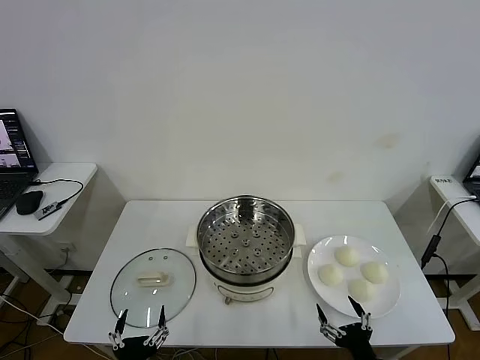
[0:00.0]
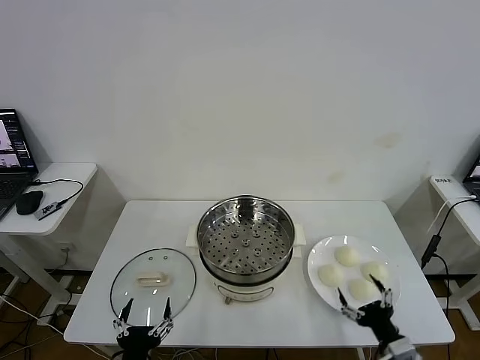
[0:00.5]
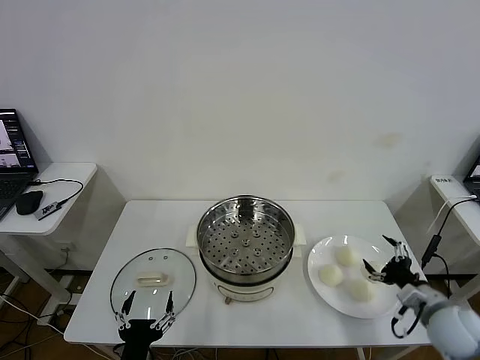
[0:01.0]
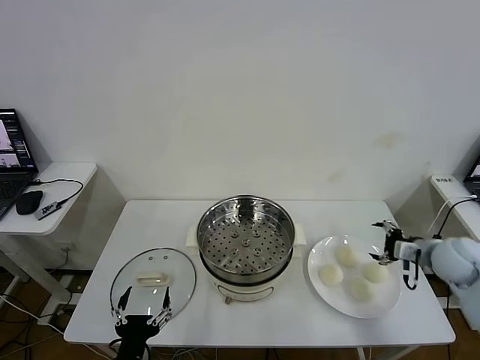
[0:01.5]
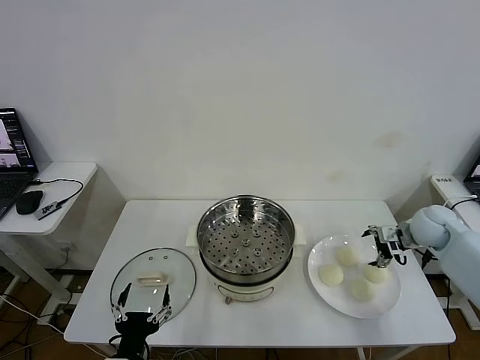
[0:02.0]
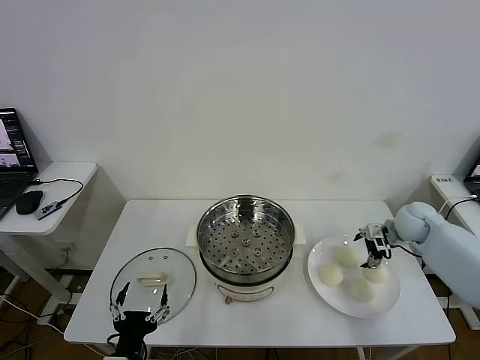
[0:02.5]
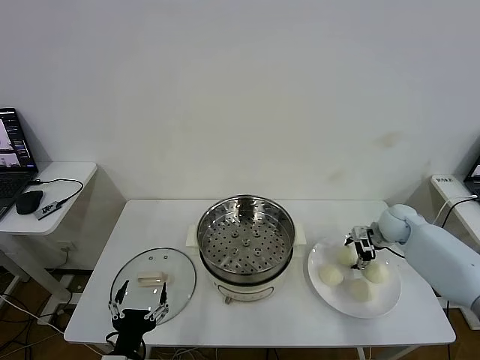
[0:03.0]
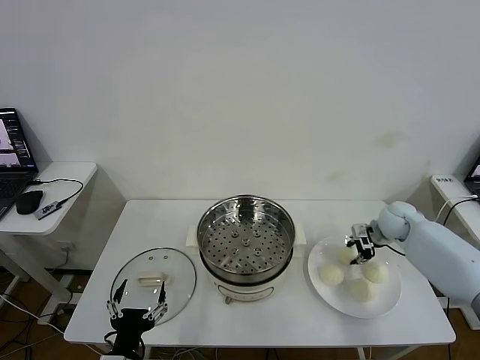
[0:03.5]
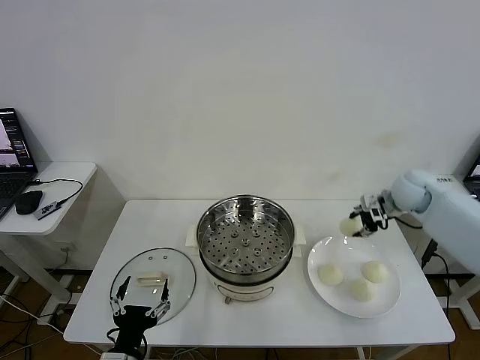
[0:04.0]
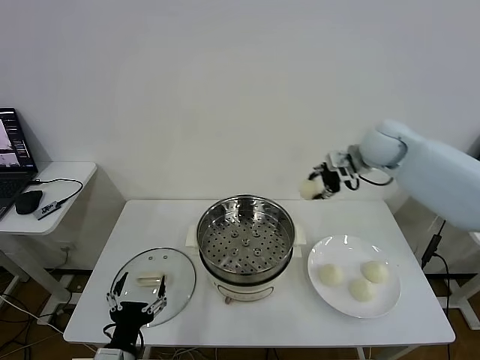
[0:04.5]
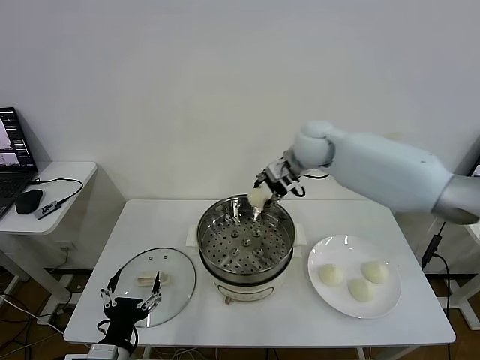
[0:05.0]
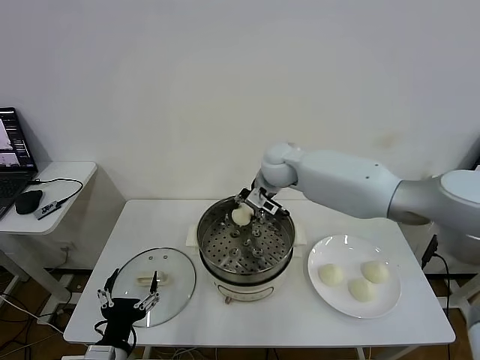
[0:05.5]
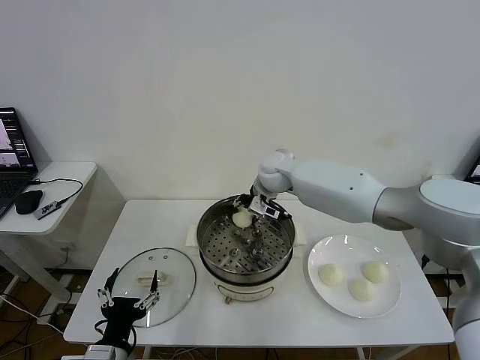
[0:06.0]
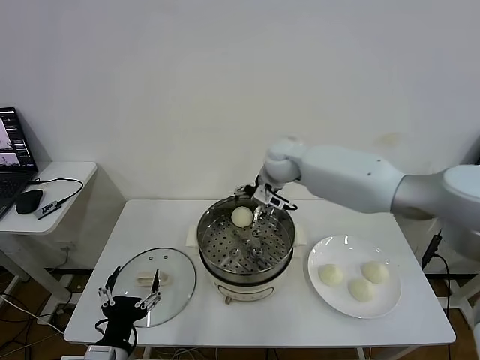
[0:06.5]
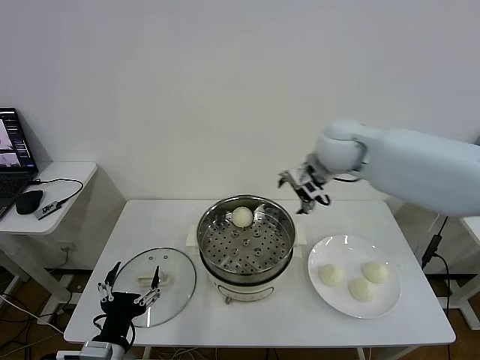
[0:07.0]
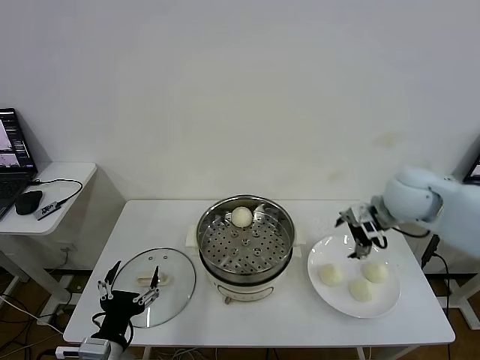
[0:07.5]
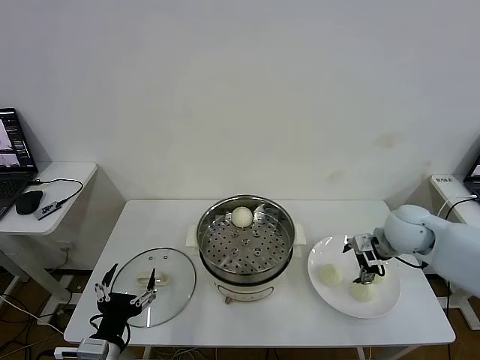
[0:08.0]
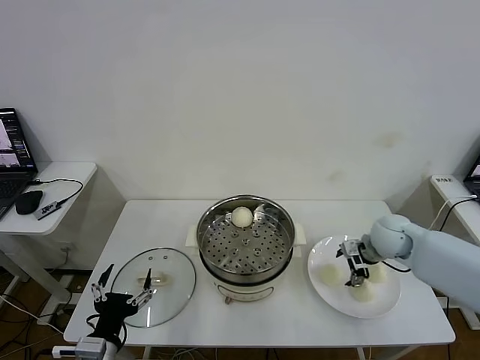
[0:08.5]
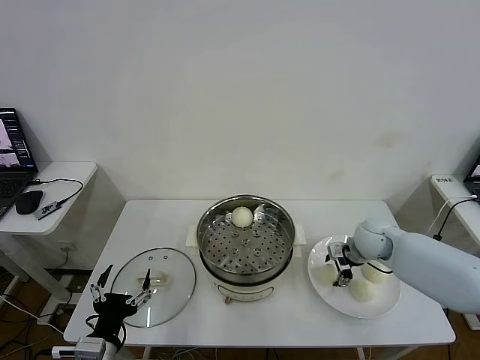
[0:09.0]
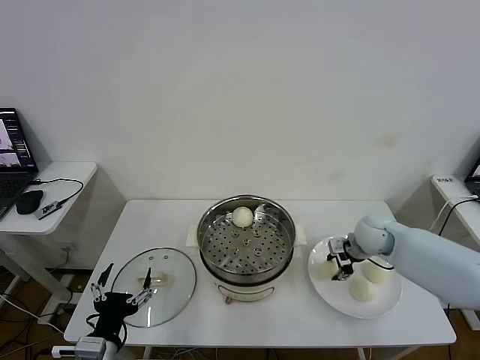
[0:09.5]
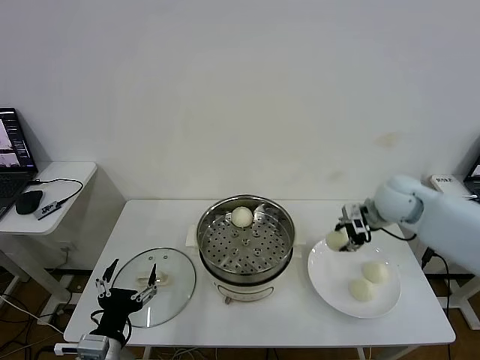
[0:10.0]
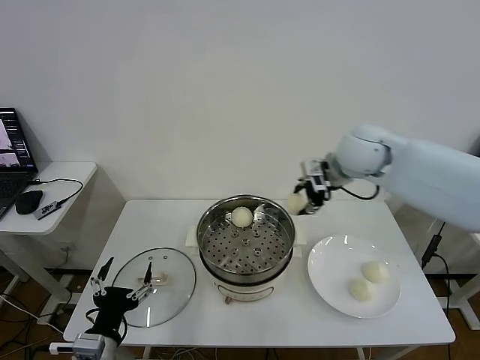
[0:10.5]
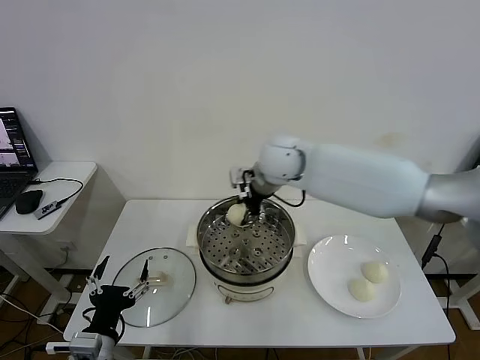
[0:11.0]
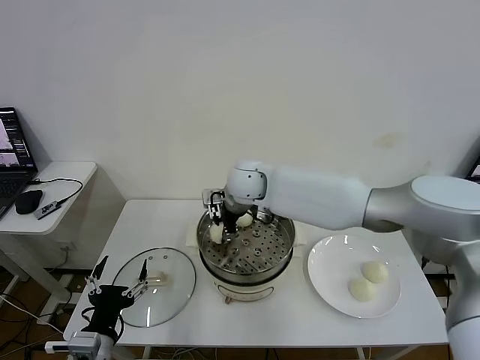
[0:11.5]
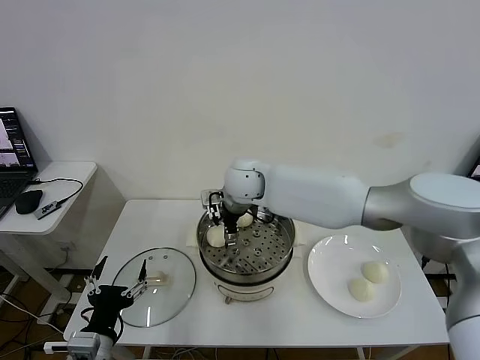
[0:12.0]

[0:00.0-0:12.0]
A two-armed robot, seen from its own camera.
Task of the whole recording: take steamed baozi put them in steamer then cover it.
Step, 0:00.0 to 0:03.0: Grasp the baozi in the plate with right gripper.
Step, 0:03.5 to 0:06.0: Place the baozi on the steamer with right gripper.
Step, 0:06.5 to 0:09.0: Grasp the baozi in the plate with right gripper.
Step, 0:09.5 to 0:11.5: Place the baozi on the steamer with right gripper.
0:02.0 to 0:04.0: The right gripper shifts some 10 cm upward and forward, and closes its fingers.
0:04.0 to 0:06.0: The right gripper moves to the left, approximately 30 cm.
0:06.0 to 0:08.0: The right gripper moves to the right and backward, about 30 cm, and opens up.
0:08.0 to 0:10.0: The right gripper travels downward and back again, approximately 10 cm each way, and closes.
0:10.0 to 0:12.0: The right gripper moves to the left, approximately 35 cm, and opens.

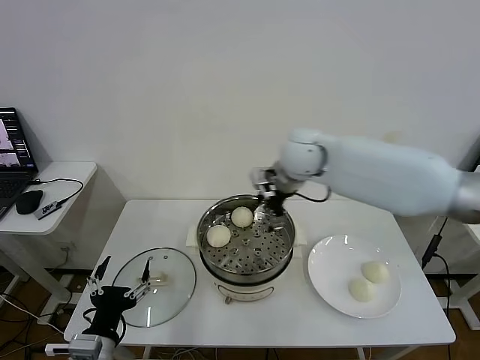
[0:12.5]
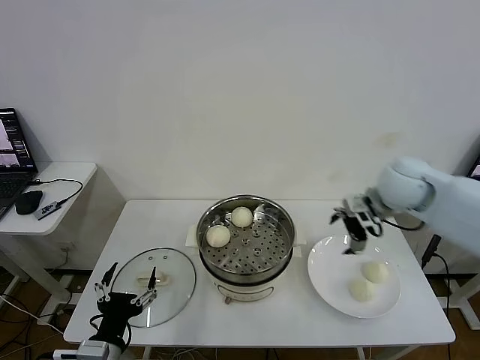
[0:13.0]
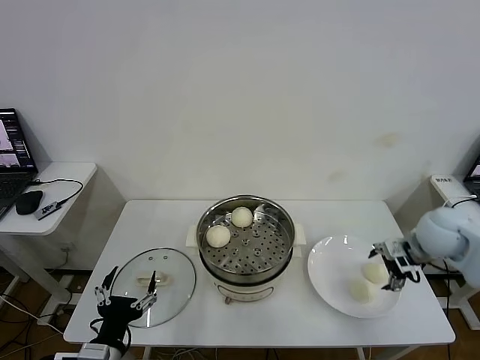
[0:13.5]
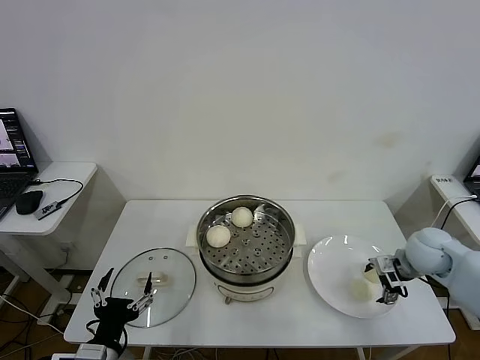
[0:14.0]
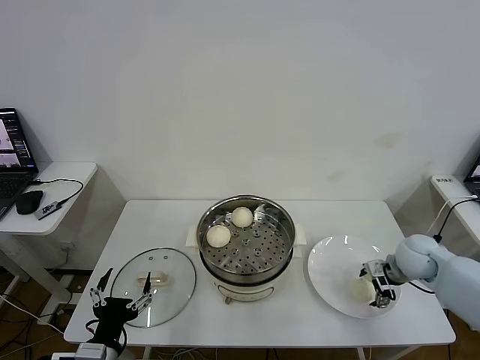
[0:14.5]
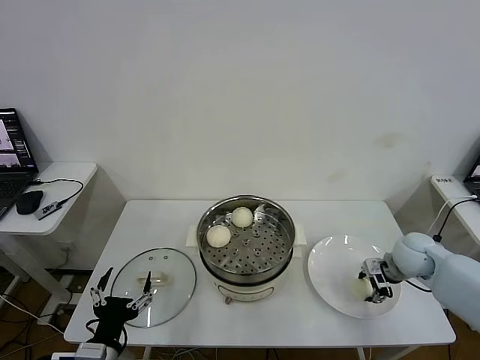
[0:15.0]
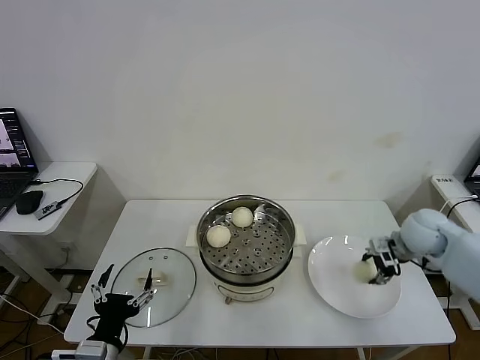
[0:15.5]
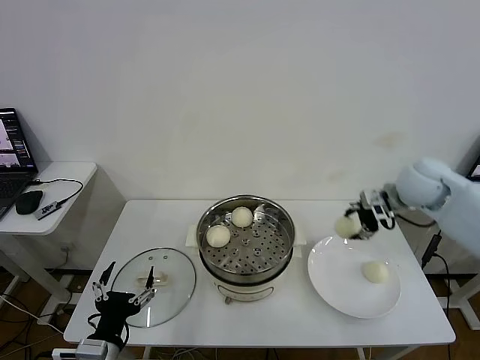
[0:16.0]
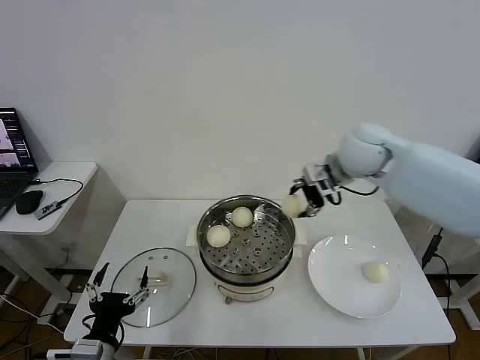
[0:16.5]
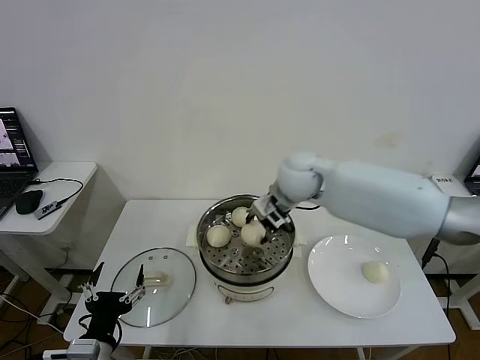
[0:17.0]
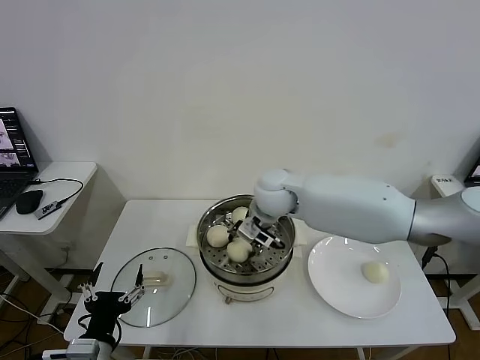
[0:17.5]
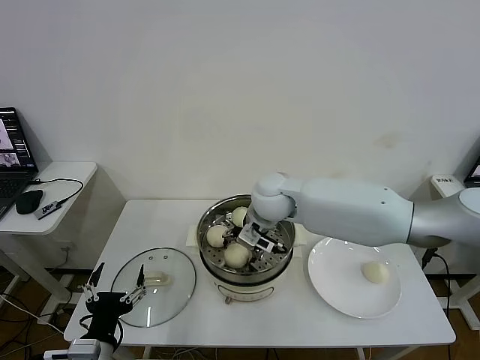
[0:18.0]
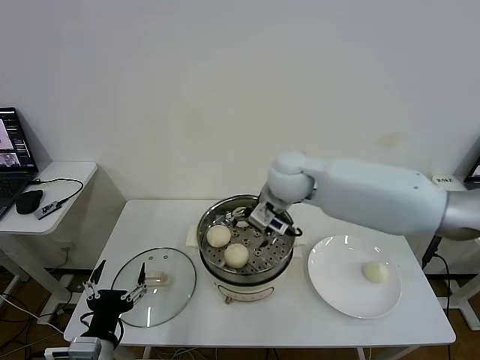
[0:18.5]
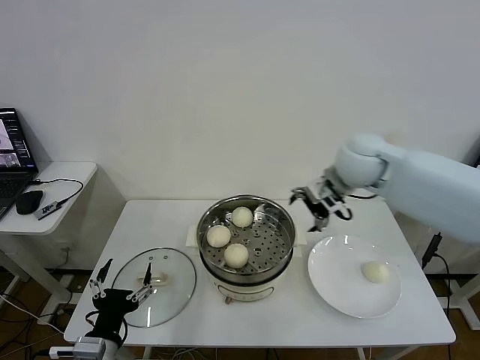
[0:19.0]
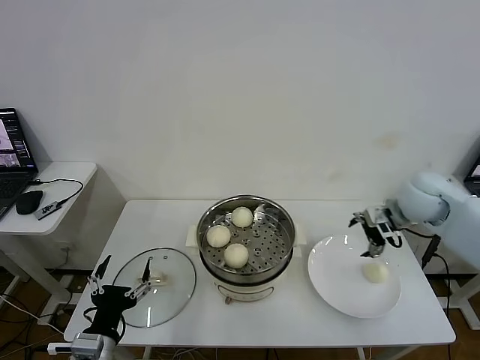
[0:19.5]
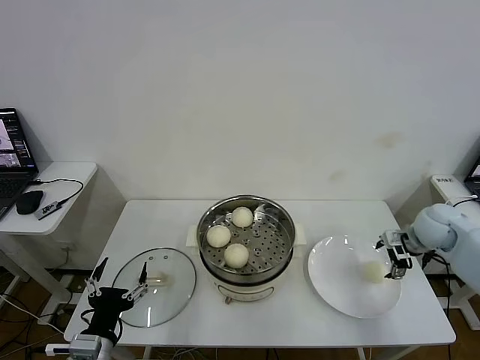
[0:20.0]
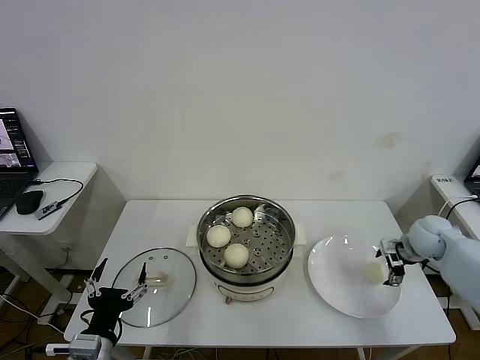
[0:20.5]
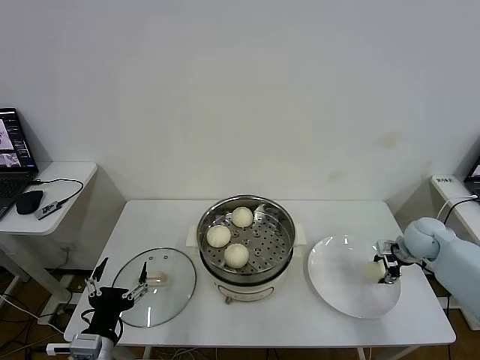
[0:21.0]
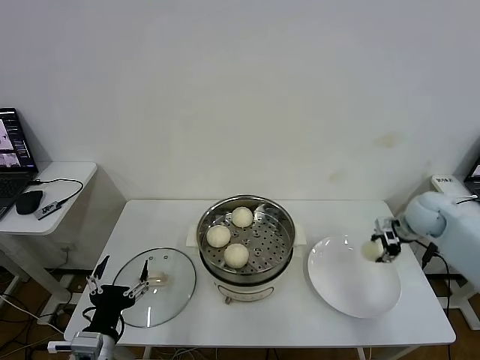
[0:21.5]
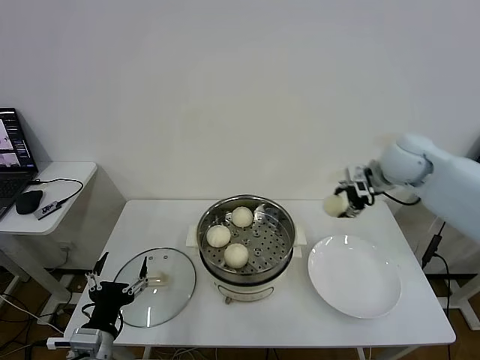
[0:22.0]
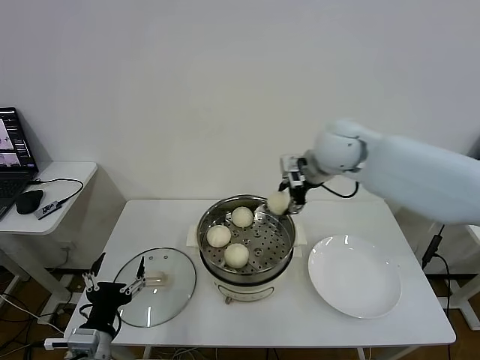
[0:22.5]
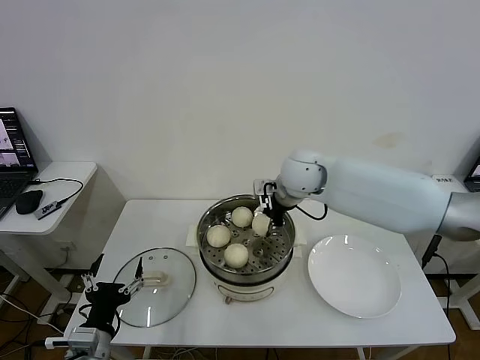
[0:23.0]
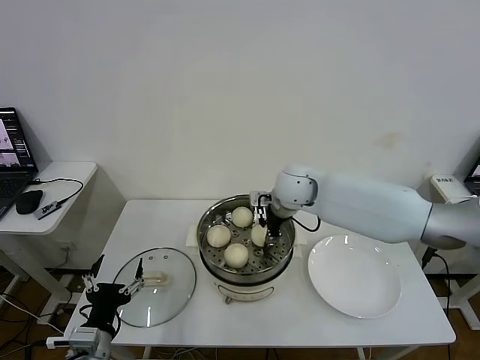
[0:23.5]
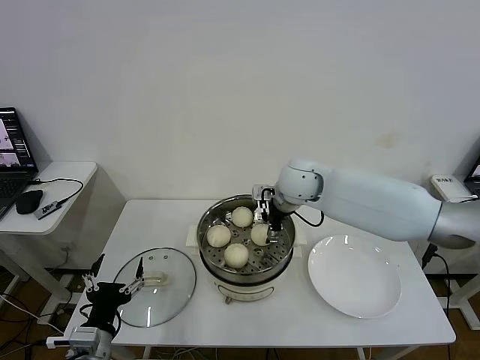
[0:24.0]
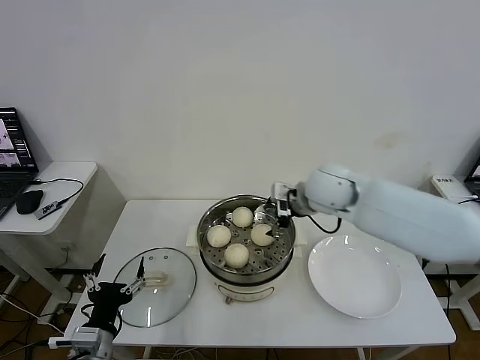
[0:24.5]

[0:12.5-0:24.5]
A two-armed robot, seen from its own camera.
Task of the whole recording: take steamed baozi put them in steamer then cover it.
Step, 0:12.5 to 0:14.5: Grasp the baozi in the plate with right gripper.
Step, 0:15.0 to 0:18.0: Place the baozi on the steamer with right gripper.
Step, 0:18.5 to 0:21.0: Grasp the baozi in the plate with right gripper.
Step, 0:21.5 to 0:23.5: Place the baozi on the steamer with right gripper.
0:12.5 to 0:14.5: The right gripper moves to the right and downward, roughly 35 cm.
0:14.5 to 0:16.5: The right gripper is displaced upward and to the left by roughly 30 cm, and closes its fingers.
0:16.5 to 0:18.5: The right gripper travels to the left by about 15 cm, and opens up.
0:18.5 to 0:20.5: The right gripper travels to the right and downward by some 40 cm.
0:20.5 to 0:22.5: The right gripper travels to the left and upward by roughly 35 cm, and closes up.
0:22.5 to 0:24.5: The right gripper travels downward by some 5 cm, and opens.

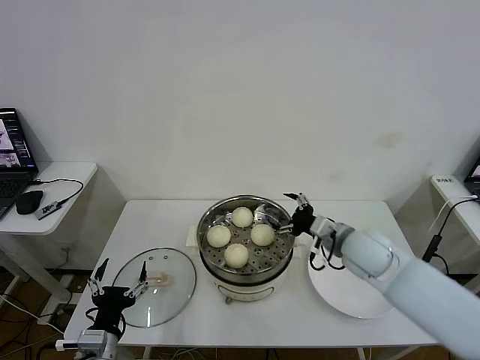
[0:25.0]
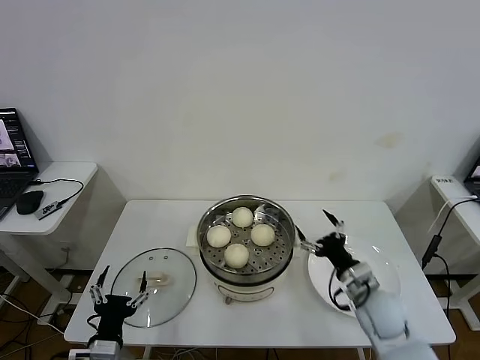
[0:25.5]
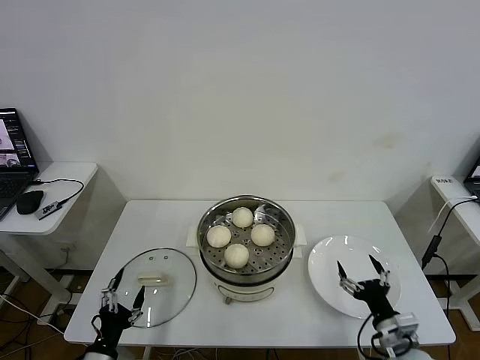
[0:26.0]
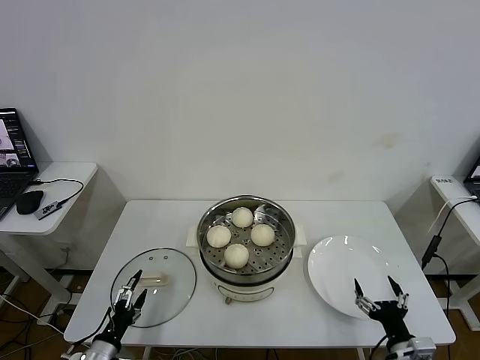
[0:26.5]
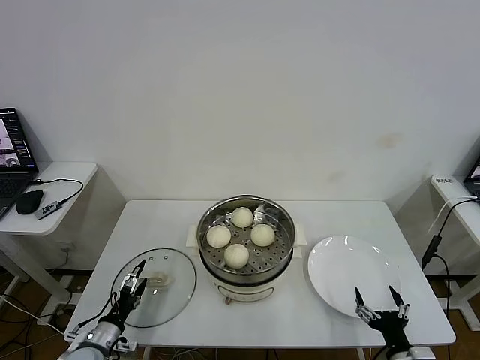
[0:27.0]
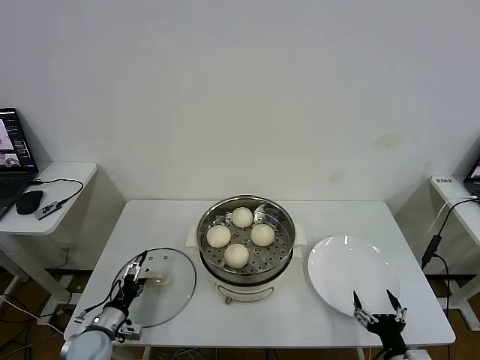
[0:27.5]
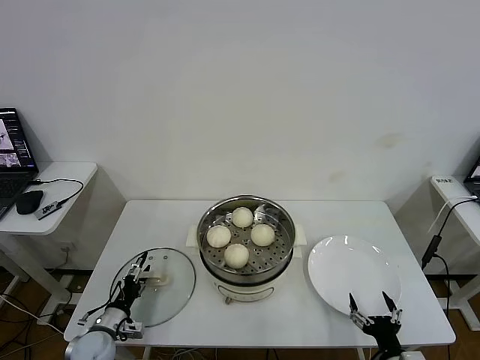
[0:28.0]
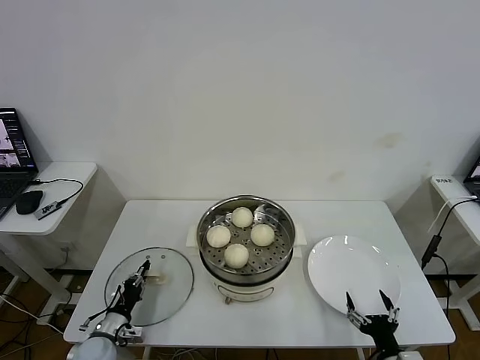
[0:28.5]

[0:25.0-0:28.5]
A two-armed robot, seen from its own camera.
Task of the whole recording: take steamed baozi put them in steamer then cover it.
0:25.0 to 0:27.0: The right gripper moves backward, downward and to the right, approximately 35 cm. The left gripper moves downward, to the left and forward, some 15 cm.
0:27.0 to 0:28.5: The left gripper shifts by about 5 cm, and closes.
